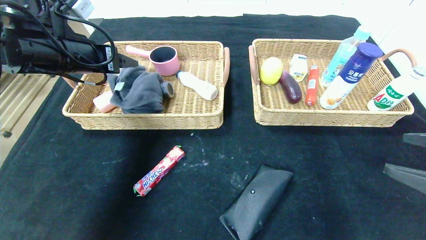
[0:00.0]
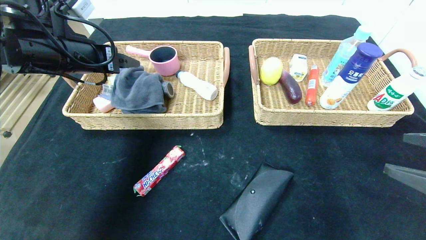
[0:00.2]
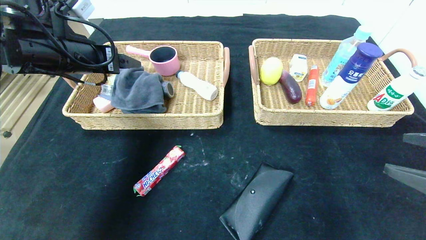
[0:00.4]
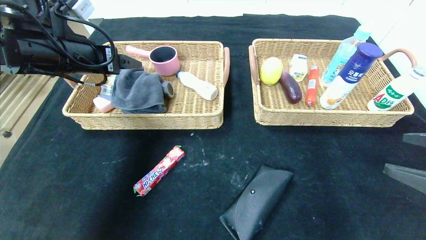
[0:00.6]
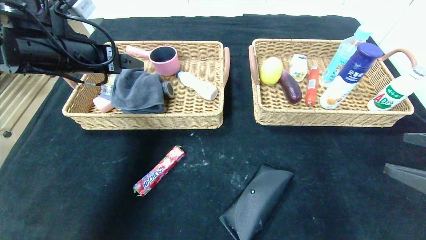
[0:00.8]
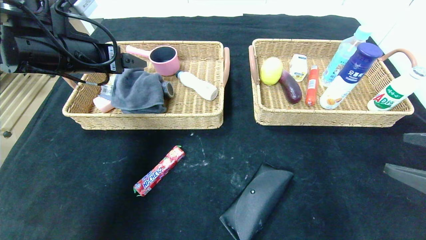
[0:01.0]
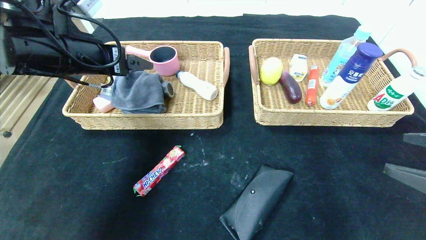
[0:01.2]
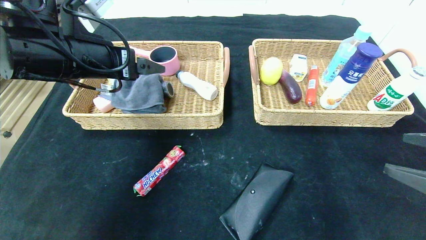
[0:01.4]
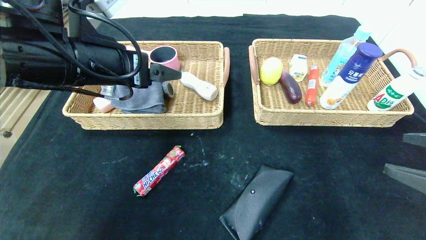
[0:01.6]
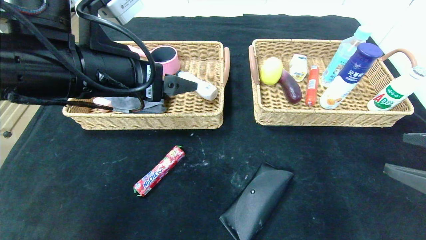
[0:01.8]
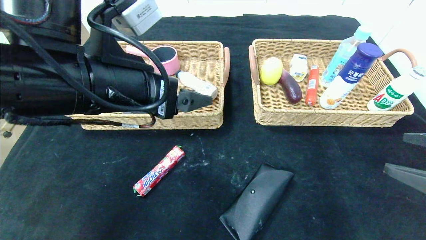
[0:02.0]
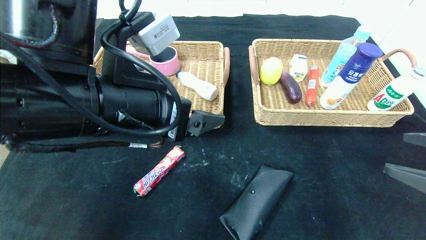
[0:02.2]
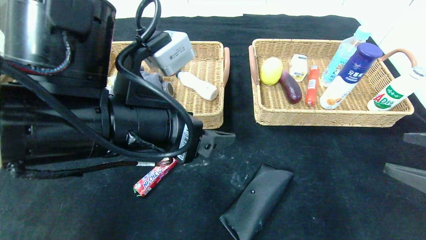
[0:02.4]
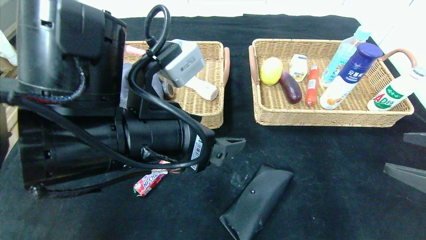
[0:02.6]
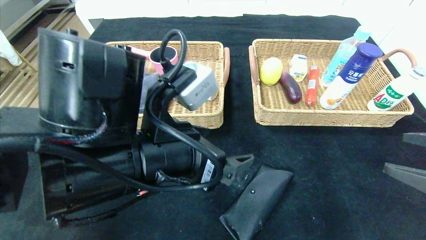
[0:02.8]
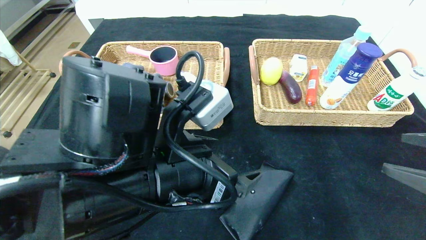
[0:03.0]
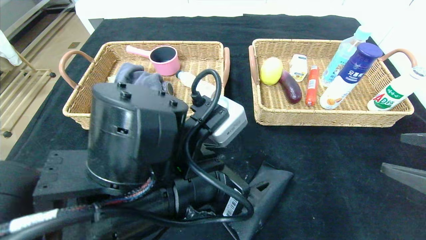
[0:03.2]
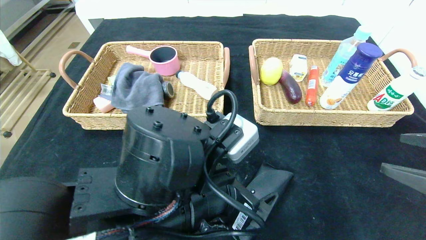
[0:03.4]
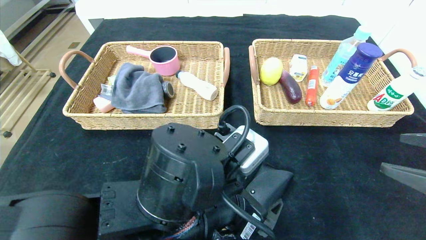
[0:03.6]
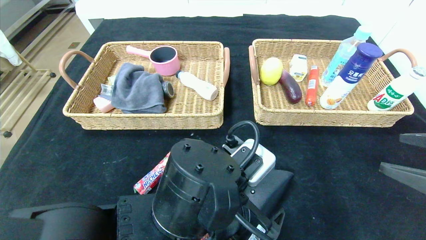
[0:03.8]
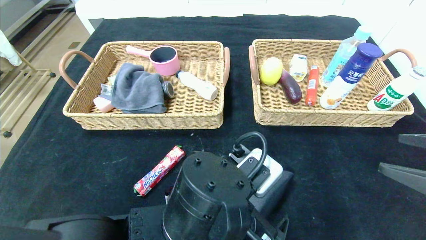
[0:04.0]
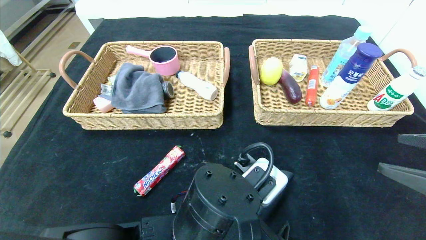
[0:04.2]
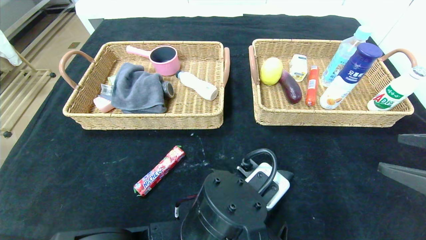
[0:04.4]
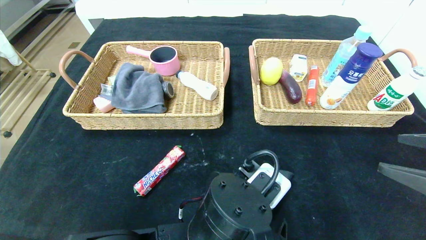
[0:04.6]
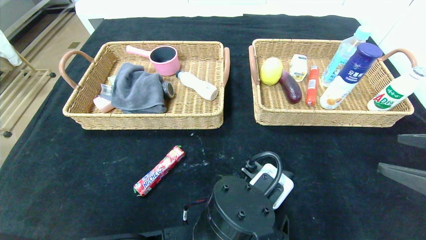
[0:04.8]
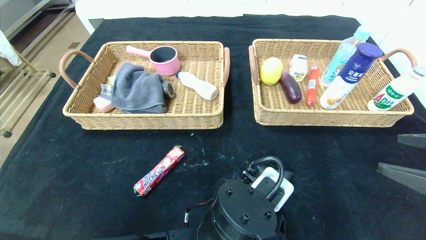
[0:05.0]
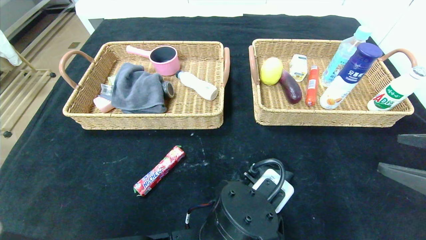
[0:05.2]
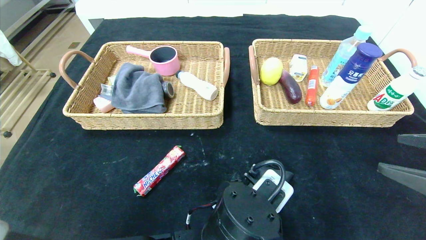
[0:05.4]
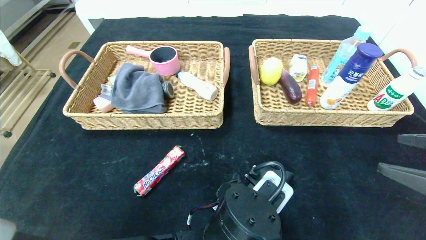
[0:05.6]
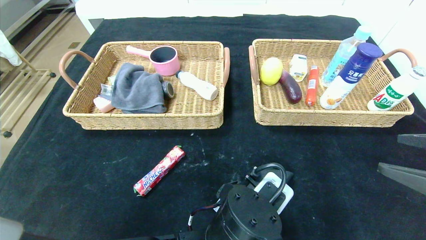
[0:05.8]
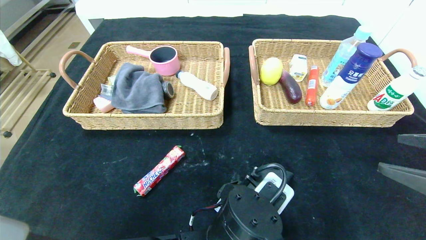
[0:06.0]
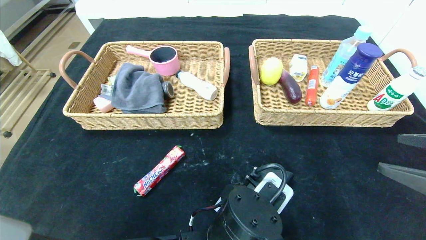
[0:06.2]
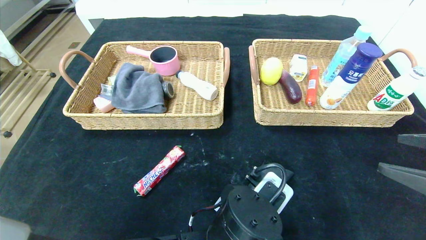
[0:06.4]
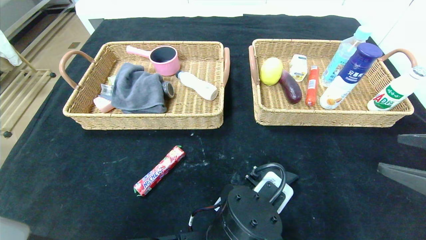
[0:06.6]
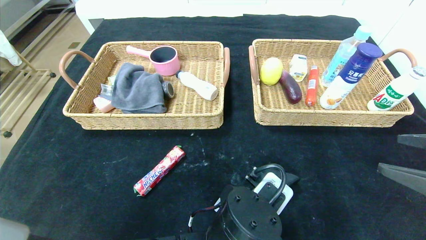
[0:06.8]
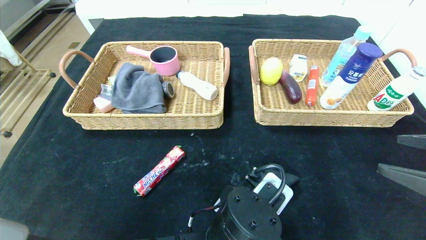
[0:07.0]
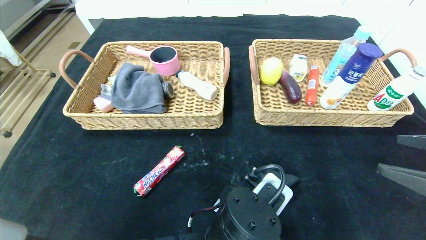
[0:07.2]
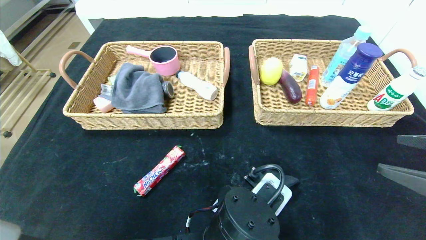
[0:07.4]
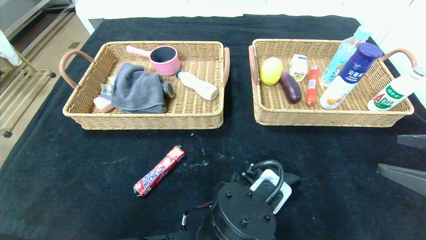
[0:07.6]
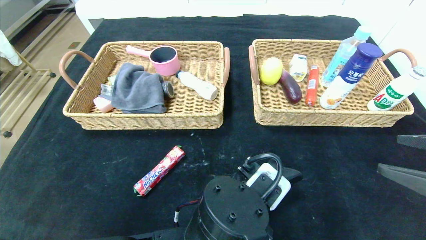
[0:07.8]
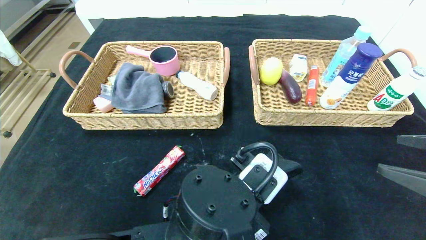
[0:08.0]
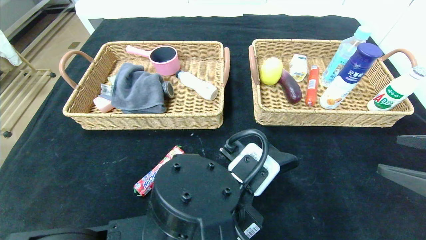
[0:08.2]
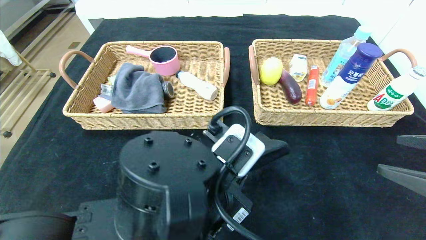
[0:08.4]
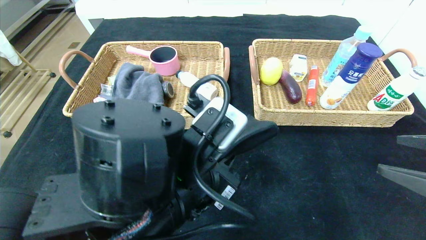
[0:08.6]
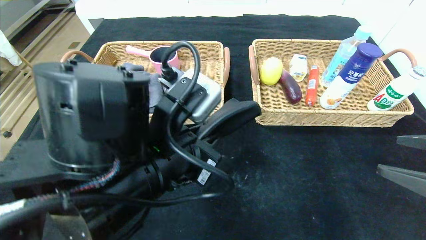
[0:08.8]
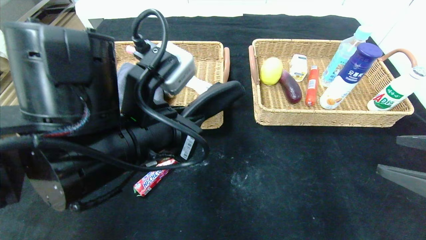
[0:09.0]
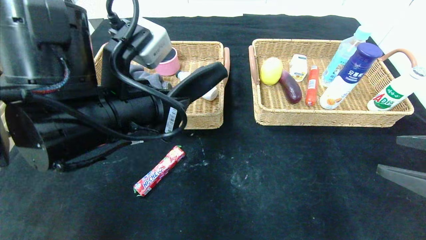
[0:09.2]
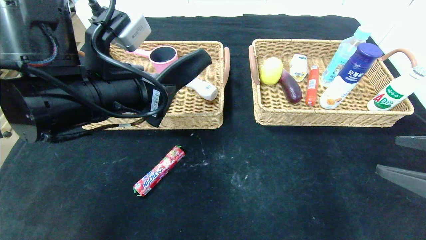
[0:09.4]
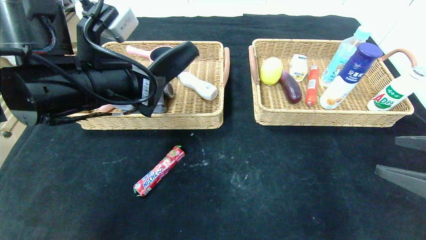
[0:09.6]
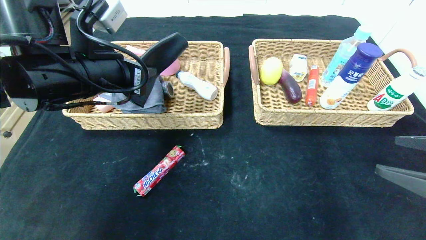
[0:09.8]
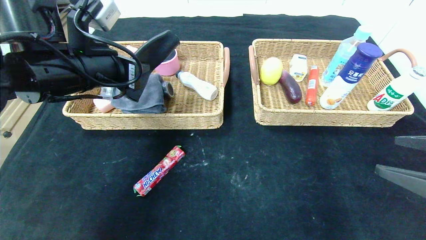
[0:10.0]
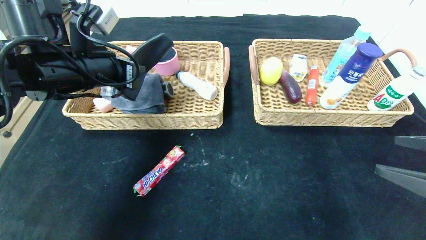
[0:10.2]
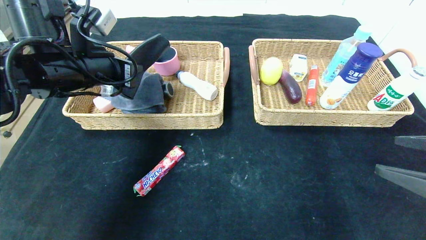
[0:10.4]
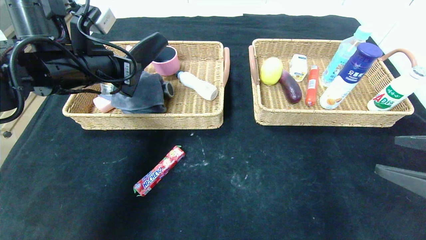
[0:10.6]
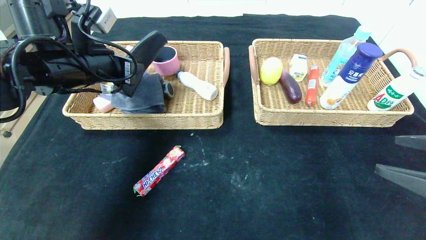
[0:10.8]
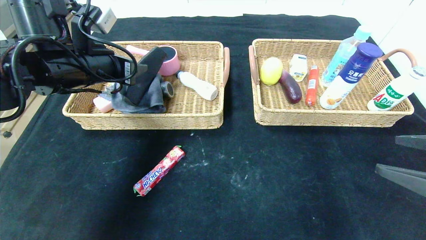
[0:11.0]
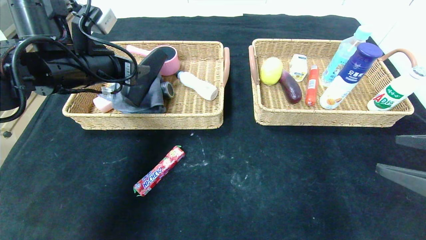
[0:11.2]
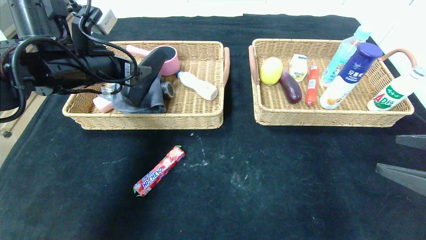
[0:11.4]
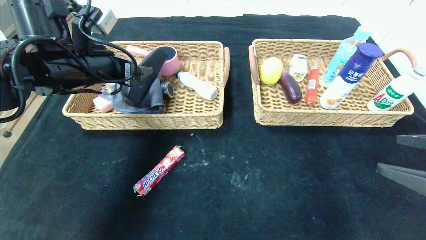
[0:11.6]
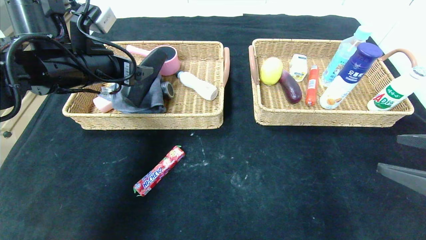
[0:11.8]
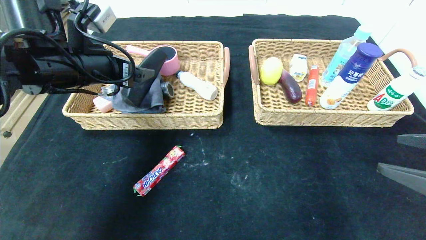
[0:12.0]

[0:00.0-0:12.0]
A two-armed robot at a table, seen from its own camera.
Step, 0:00.2 to 0:11.2: Grasp the glasses case and put it in the left basket.
0:00.0 to 0:01.6: The left gripper is displaced to the right and backward by about 10 cm.
0:01.6 to 0:03.0: The left gripper heads to the right, downward and backward, covering some 15 cm.
0:03.0 to 0:04.4: The left gripper moves downward and to the right, about 10 cm.
0:04.4 to 0:06.0: There are only small adjustments of the grippers.
0:06.0 to 0:07.6: The left gripper closes its fingers.
0:07.6 to 0:09.0: The left gripper heads upward and to the left, covering some 15 cm.
0:09.0 to 0:10.4: The left gripper heads forward and to the left, covering approximately 20 cm.
0:10.4 to 0:12.0: The left gripper opens up.

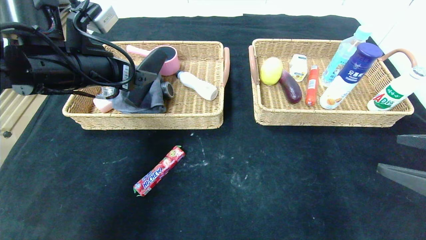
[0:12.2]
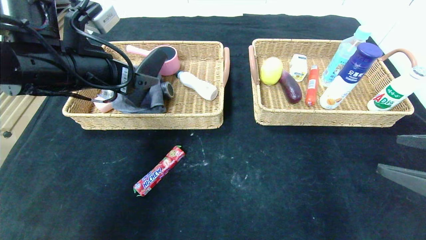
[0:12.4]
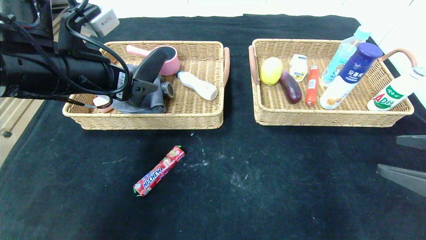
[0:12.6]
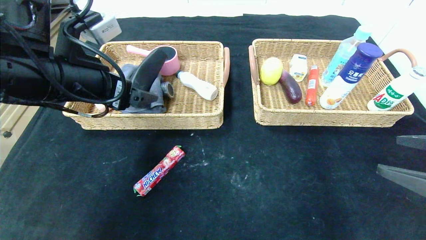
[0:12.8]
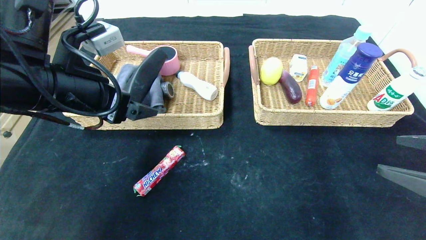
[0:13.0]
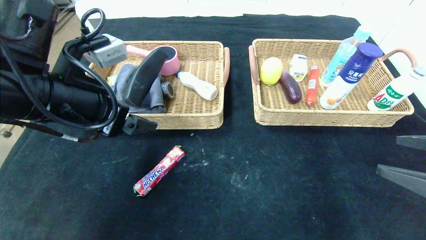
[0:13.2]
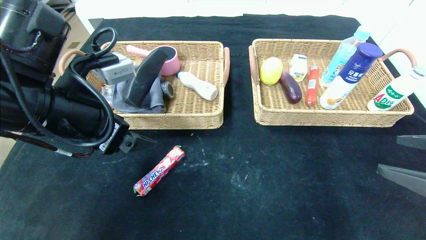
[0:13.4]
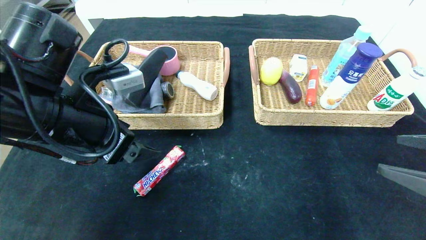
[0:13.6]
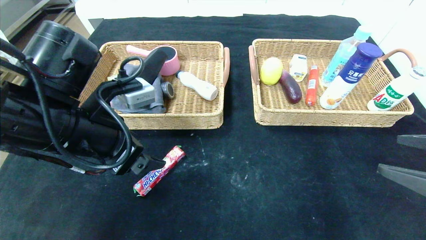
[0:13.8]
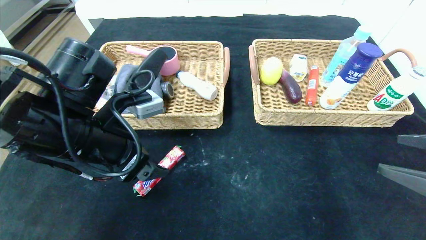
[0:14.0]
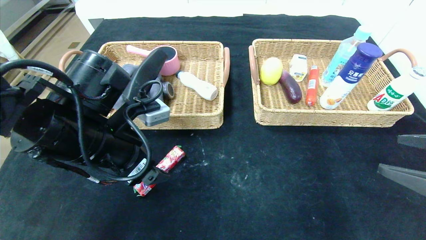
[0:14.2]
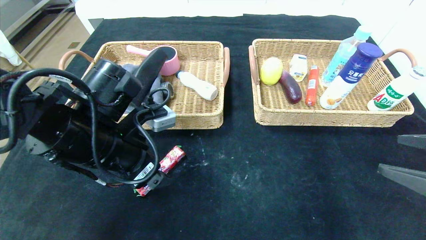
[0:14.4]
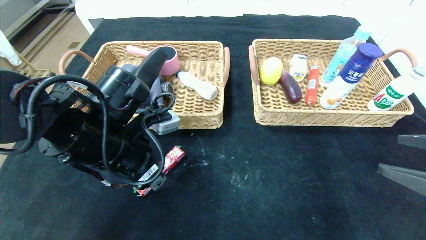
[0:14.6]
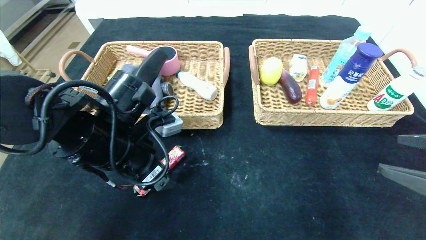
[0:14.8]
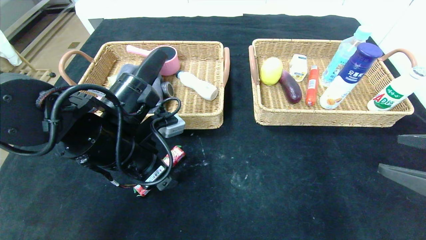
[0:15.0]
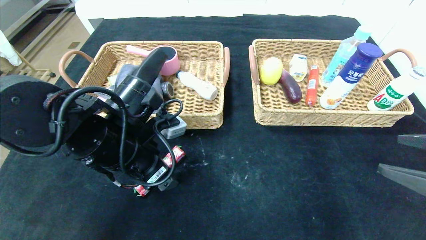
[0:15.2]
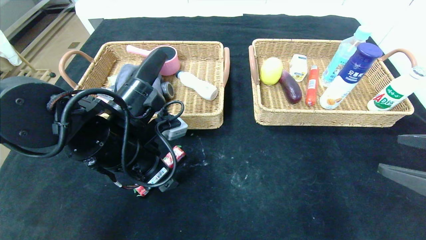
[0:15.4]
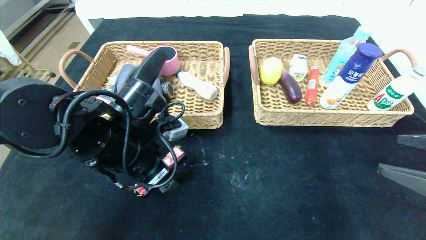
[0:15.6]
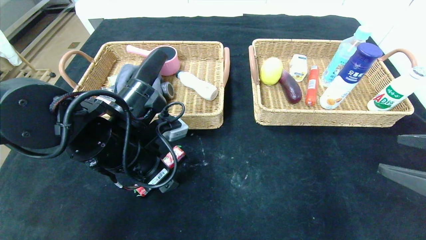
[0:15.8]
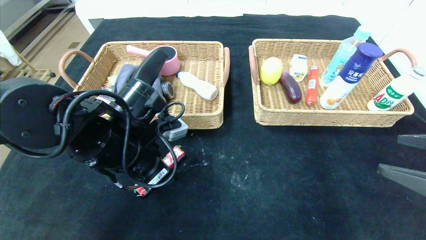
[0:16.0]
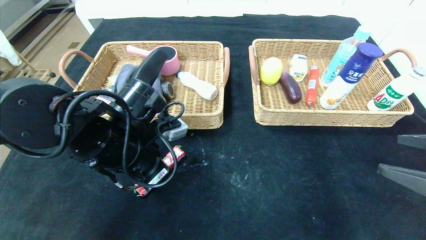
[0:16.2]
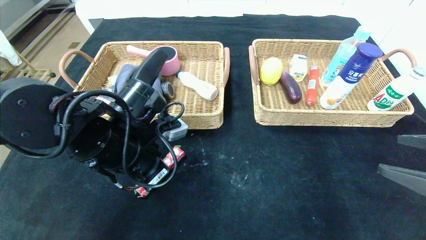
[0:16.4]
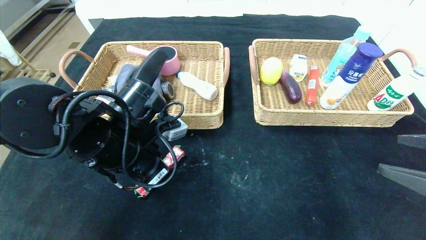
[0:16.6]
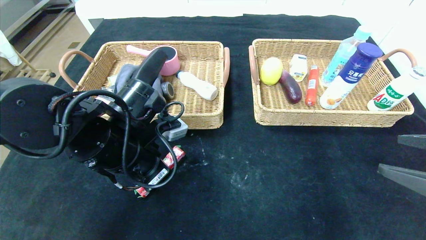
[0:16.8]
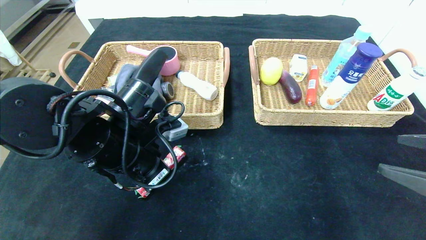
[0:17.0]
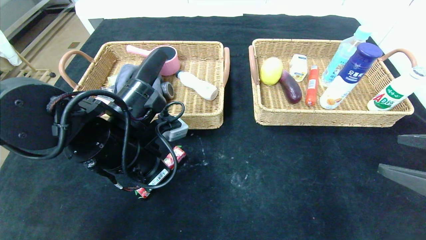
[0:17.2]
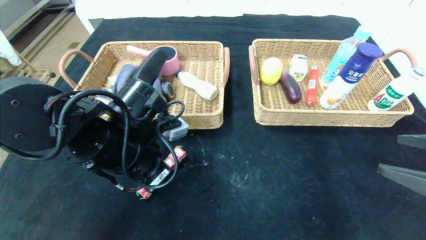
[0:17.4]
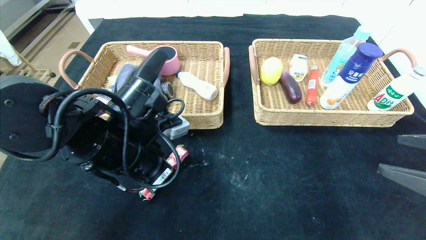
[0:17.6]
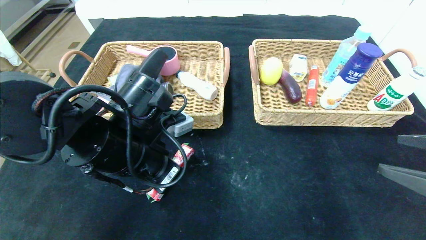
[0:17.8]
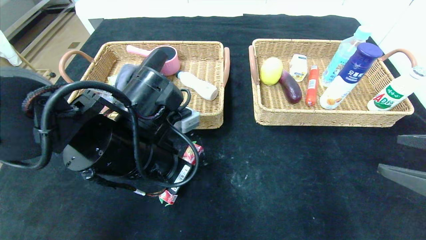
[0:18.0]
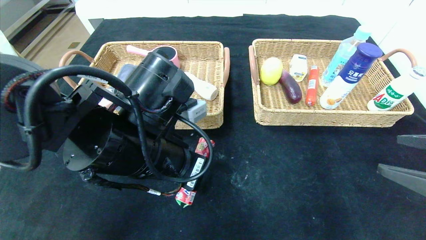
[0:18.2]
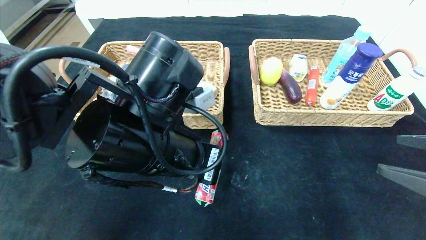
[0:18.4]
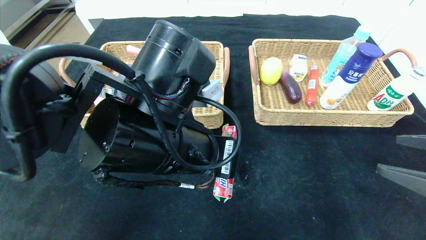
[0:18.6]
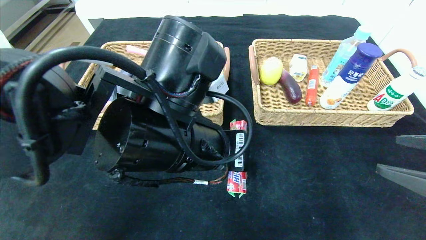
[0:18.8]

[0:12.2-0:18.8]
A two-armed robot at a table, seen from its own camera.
0:12.2 to 0:13.8: The left gripper shifts approximately 10 cm backward and downward.
0:13.8 to 0:15.4: The left gripper moves downward, roughly 5 cm.
0:15.4 to 0:17.2: The left gripper closes up.
0:17.2 to 0:18.8: The left gripper shifts some 15 cm to the right, upward and backward.
